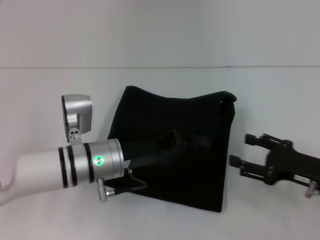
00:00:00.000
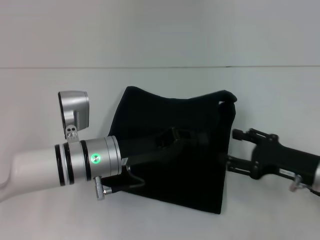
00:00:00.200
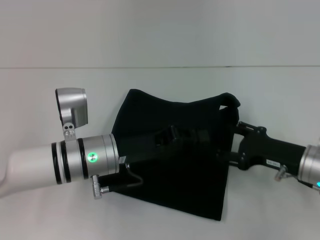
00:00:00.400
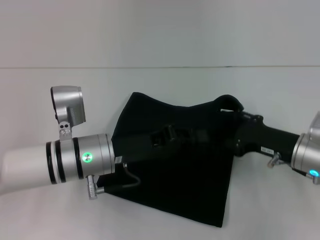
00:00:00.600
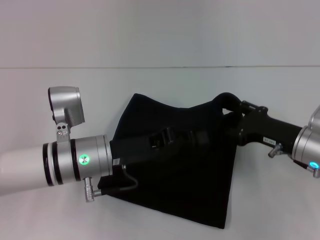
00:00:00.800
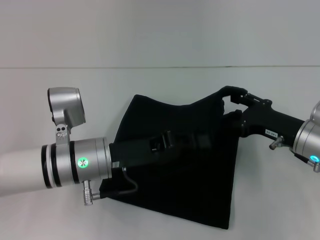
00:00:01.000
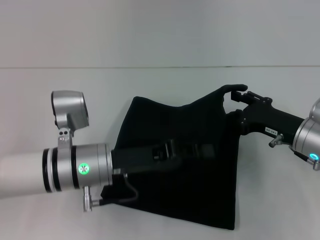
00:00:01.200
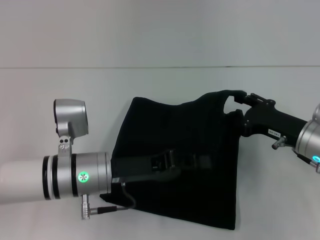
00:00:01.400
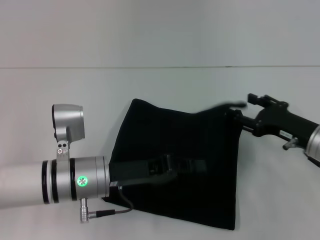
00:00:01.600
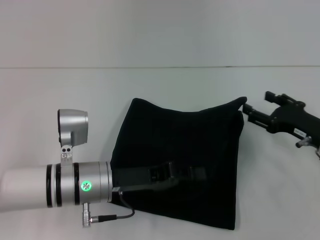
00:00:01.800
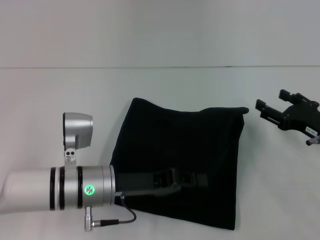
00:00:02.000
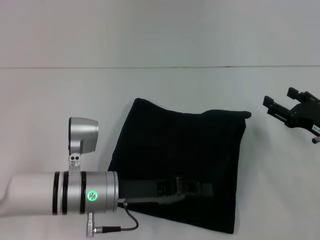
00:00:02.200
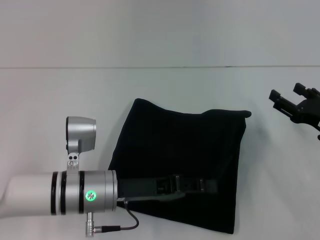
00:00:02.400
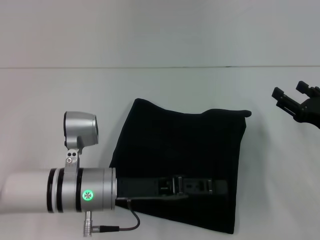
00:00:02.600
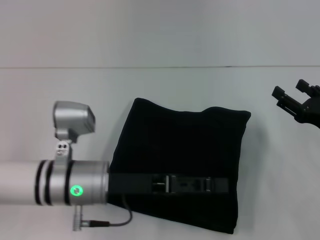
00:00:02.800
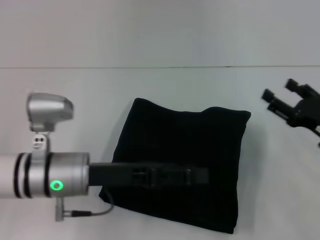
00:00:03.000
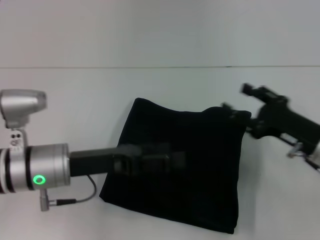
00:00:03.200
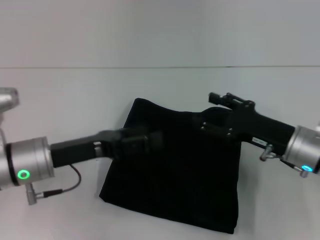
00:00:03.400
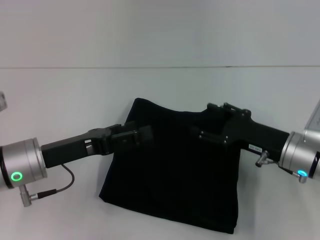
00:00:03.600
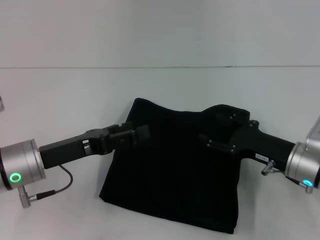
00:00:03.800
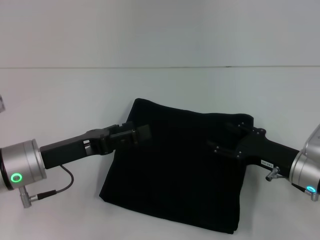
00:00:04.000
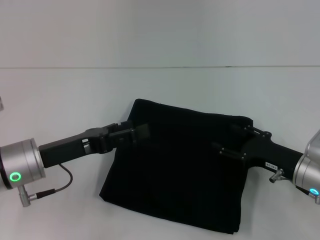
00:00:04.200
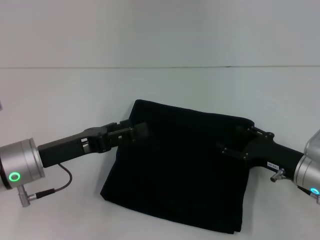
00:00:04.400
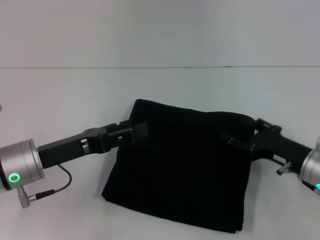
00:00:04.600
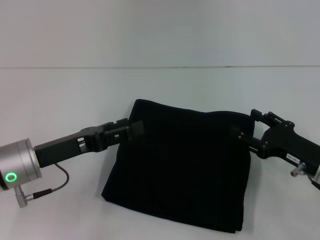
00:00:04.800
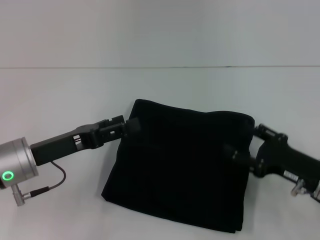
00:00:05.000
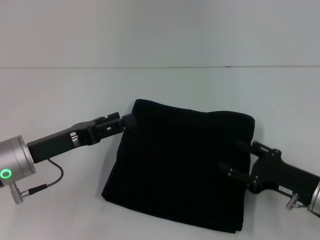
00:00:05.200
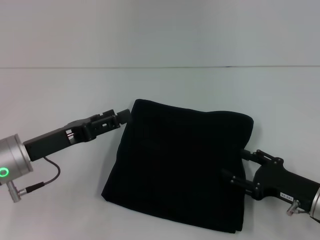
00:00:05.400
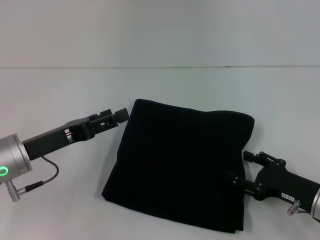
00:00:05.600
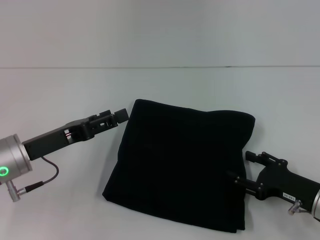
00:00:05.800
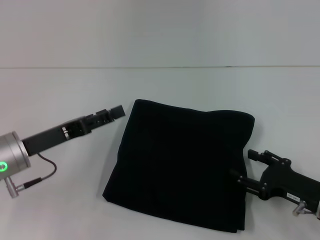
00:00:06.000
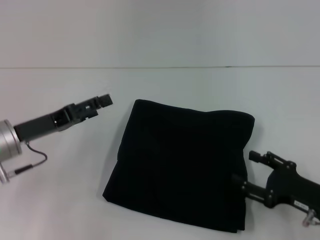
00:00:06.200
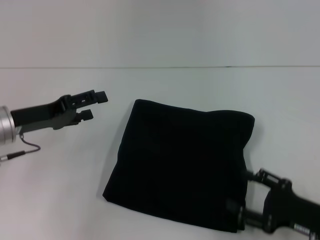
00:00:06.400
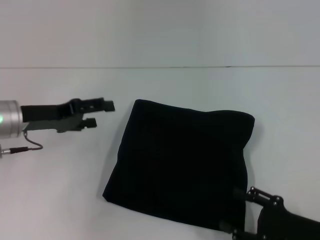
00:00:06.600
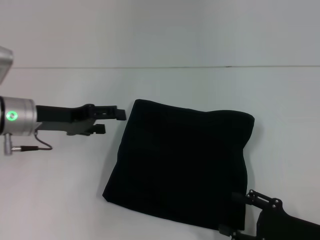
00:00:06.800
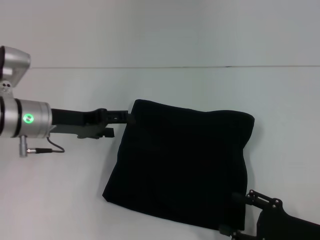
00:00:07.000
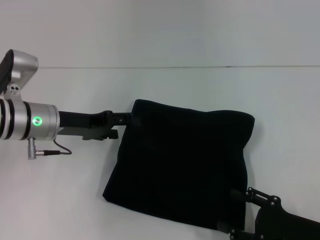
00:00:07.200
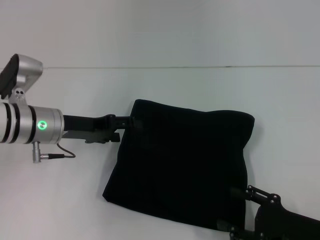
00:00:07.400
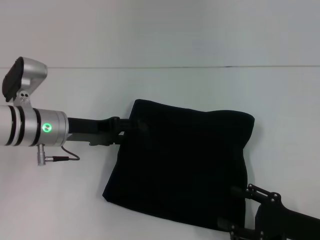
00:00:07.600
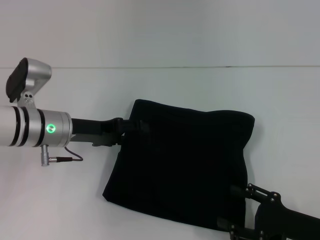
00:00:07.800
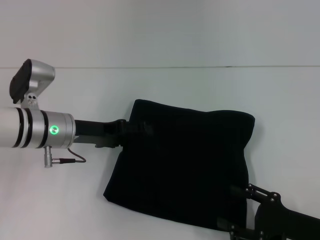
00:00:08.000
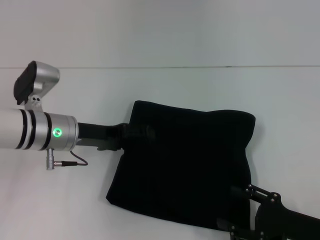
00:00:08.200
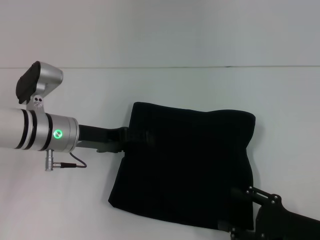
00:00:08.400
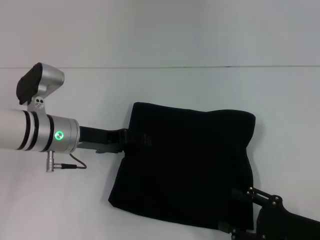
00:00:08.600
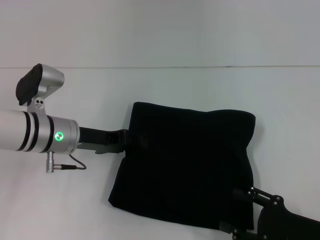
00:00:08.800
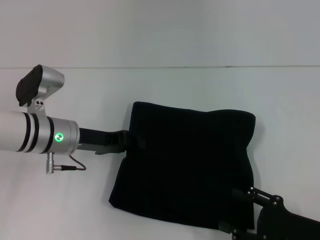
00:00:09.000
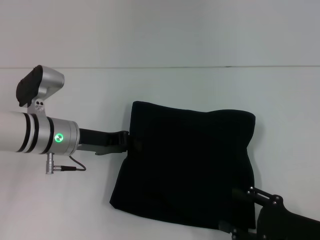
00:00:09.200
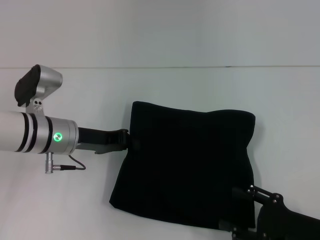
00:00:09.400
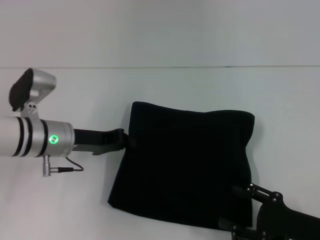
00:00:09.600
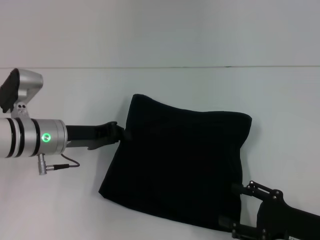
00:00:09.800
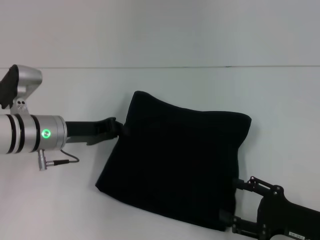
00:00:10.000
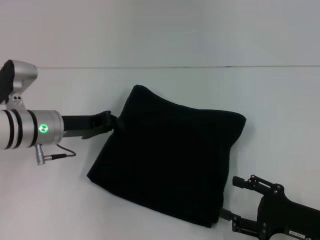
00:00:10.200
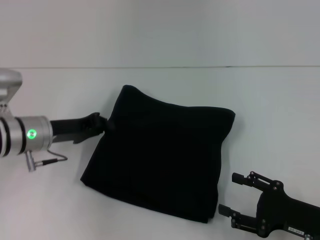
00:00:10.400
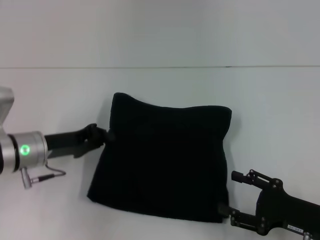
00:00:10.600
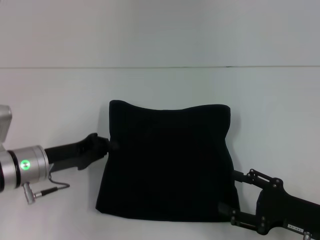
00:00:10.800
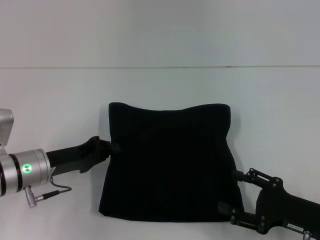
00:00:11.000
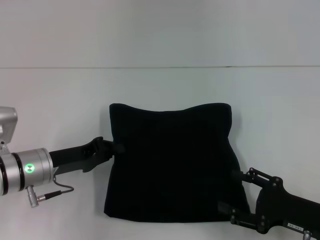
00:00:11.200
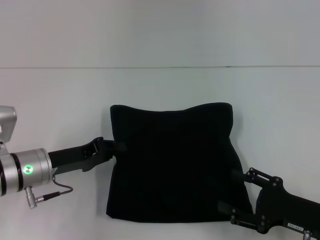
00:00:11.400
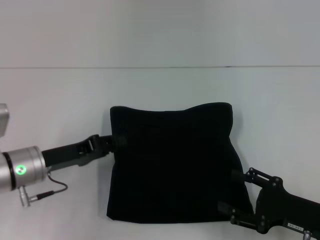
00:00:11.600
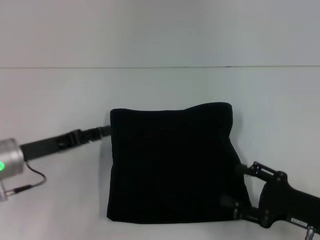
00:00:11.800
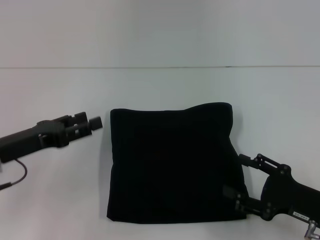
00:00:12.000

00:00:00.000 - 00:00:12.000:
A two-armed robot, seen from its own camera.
00:00:00.000 - 00:00:01.600: The right gripper shifts some 5 cm forward.
00:00:01.600 - 00:00:03.000: The left gripper opens up.
00:00:03.000 - 00:00:04.400: The left gripper goes roughly 5 cm to the left, while the right gripper moves some 5 cm.
00:00:04.400 - 00:00:06.000: The right gripper travels backward by approximately 5 cm.
00:00:06.000 - 00:00:07.600: The left gripper shifts about 5 cm forward.
00:00:07.600 - 00:00:09.000: The left gripper closes.
00:00:09.000 - 00:00:10.400: The left gripper closes its fingers.
00:00:10.400 - 00:00:12.000: The left gripper goes roughly 5 cm backward, and opens up.

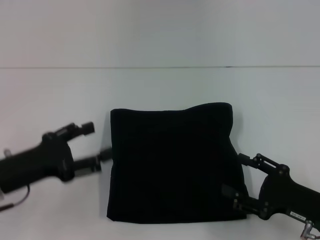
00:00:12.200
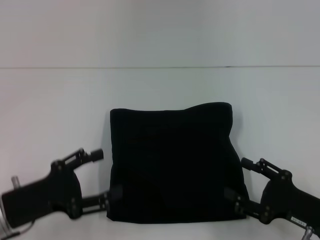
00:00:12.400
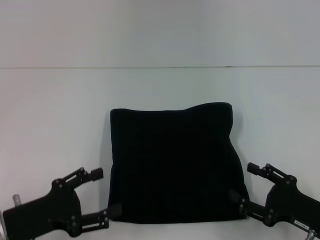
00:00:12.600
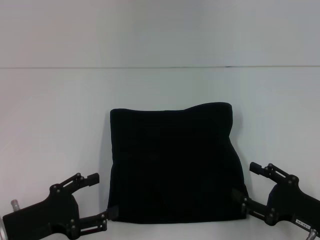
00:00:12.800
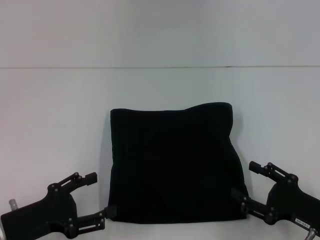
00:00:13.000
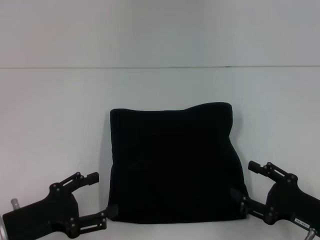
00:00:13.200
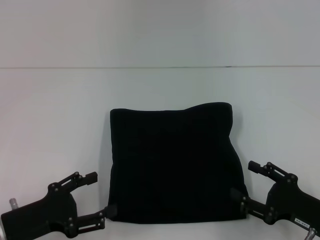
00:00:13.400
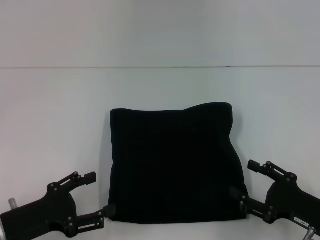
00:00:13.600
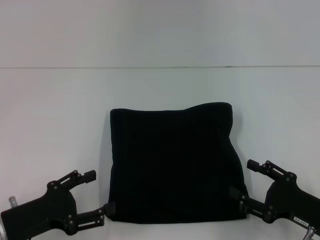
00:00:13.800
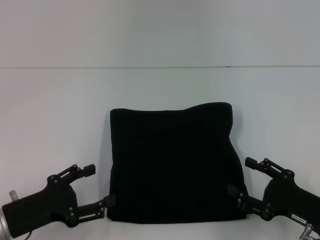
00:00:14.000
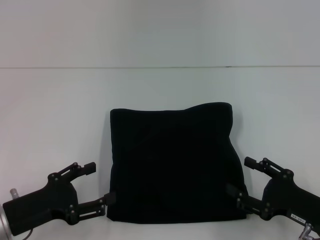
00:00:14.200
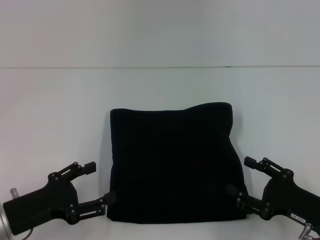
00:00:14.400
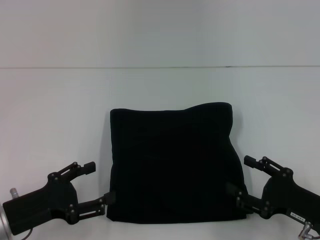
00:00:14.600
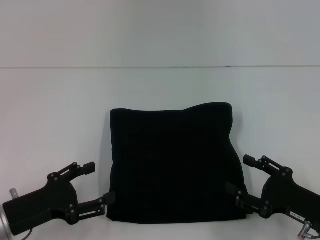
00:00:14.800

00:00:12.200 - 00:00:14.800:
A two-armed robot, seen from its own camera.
00:00:12.200 - 00:00:13.400: The left gripper changes place by about 5 cm.
00:00:13.400 - 00:00:14.800: Neither gripper changes place.

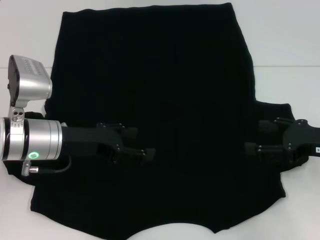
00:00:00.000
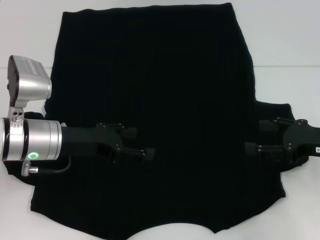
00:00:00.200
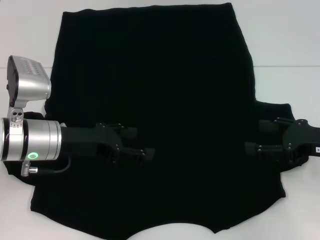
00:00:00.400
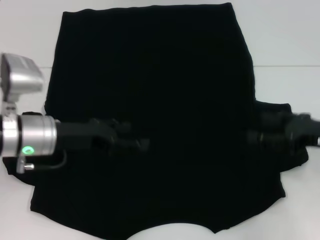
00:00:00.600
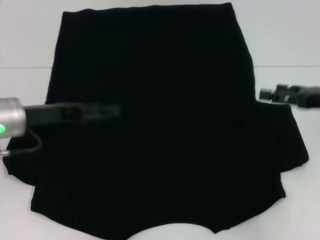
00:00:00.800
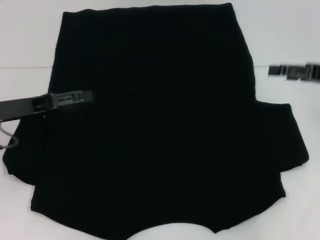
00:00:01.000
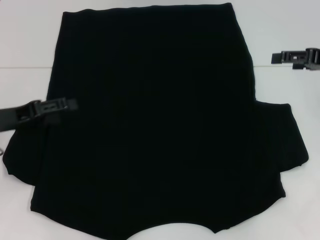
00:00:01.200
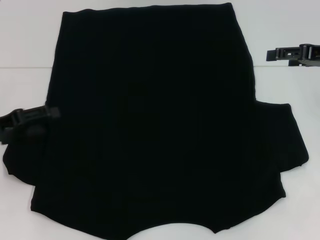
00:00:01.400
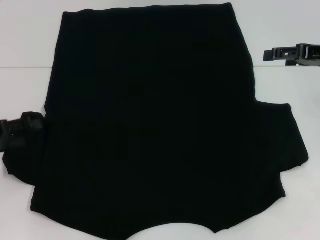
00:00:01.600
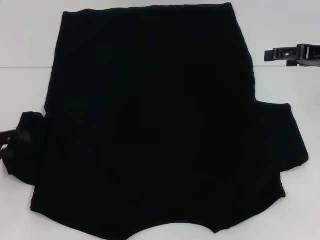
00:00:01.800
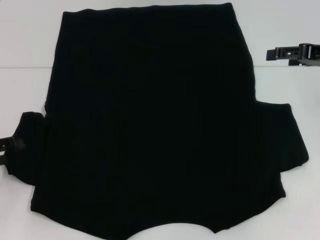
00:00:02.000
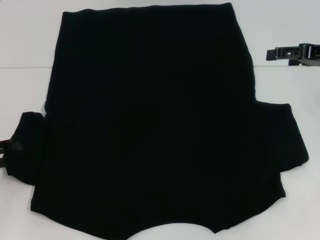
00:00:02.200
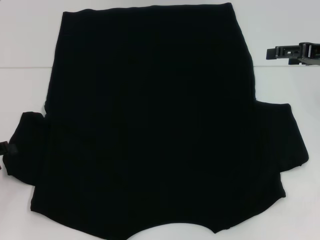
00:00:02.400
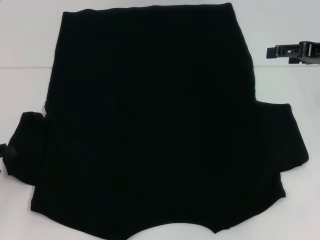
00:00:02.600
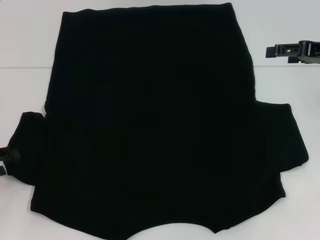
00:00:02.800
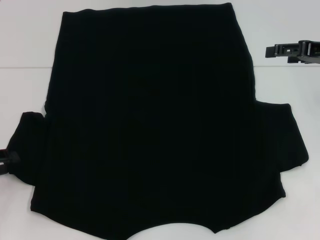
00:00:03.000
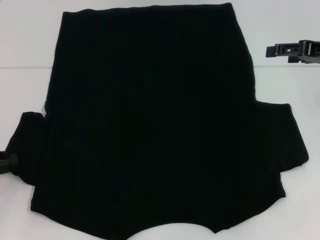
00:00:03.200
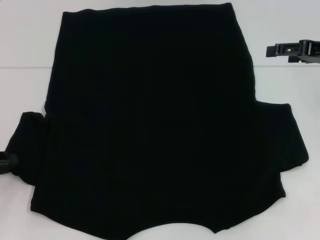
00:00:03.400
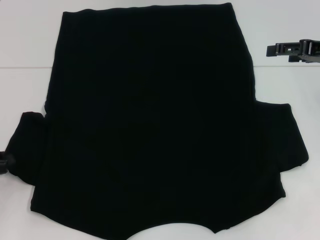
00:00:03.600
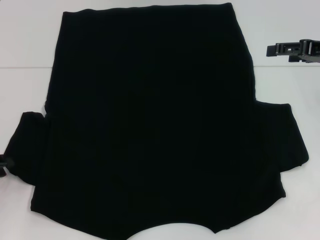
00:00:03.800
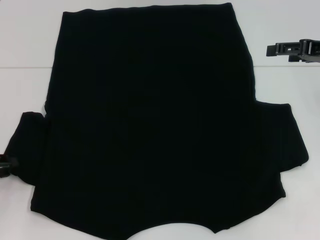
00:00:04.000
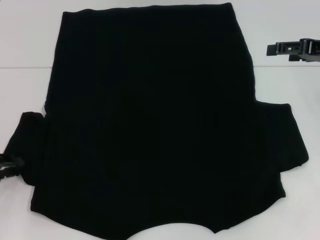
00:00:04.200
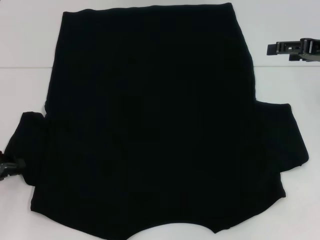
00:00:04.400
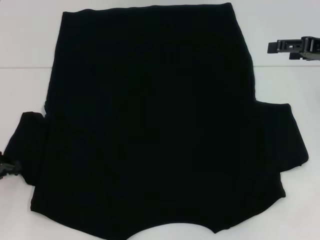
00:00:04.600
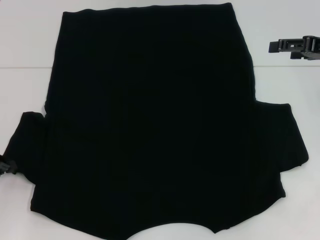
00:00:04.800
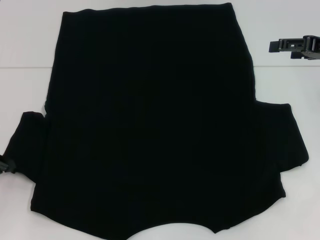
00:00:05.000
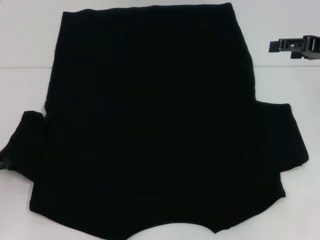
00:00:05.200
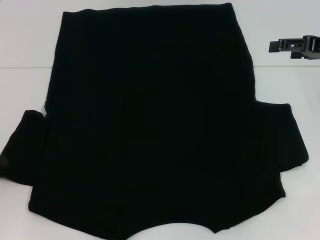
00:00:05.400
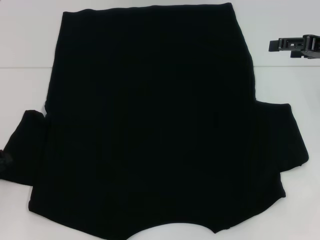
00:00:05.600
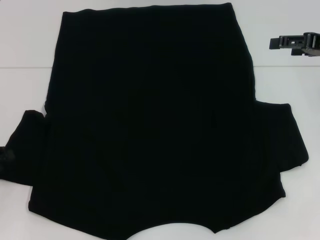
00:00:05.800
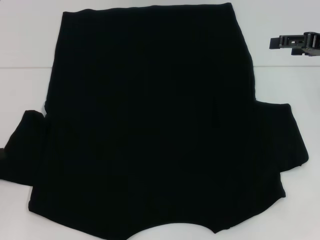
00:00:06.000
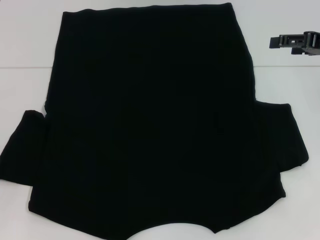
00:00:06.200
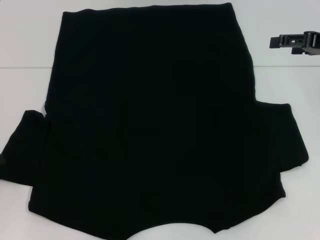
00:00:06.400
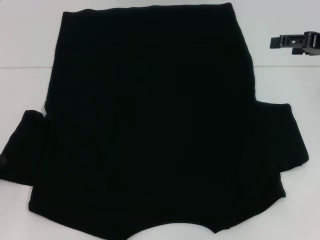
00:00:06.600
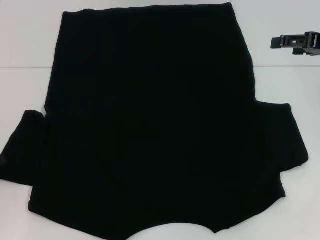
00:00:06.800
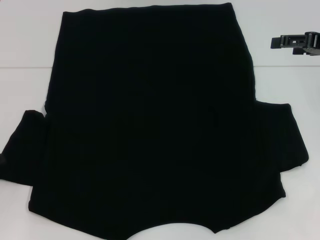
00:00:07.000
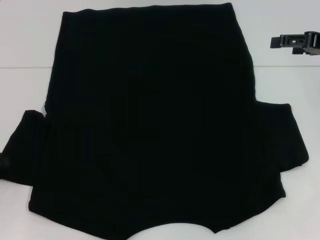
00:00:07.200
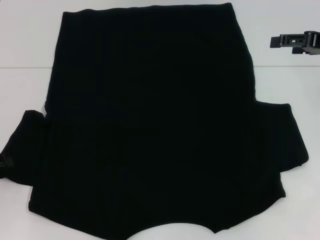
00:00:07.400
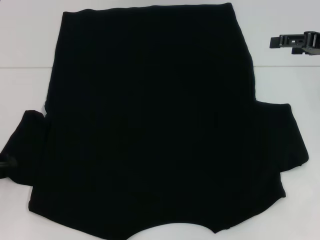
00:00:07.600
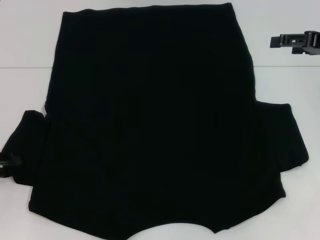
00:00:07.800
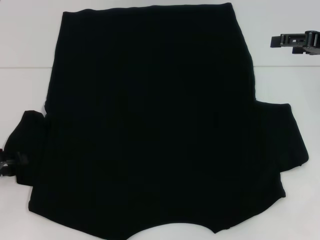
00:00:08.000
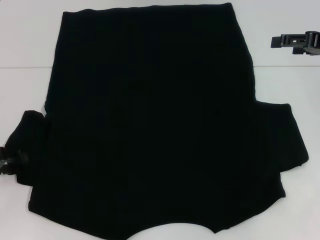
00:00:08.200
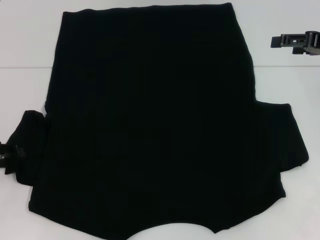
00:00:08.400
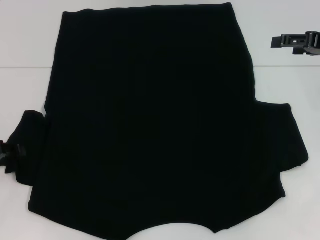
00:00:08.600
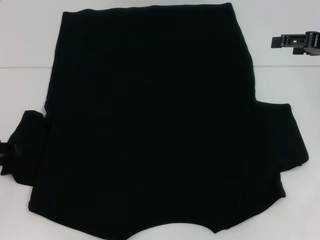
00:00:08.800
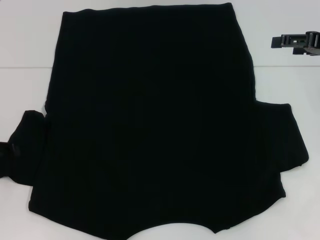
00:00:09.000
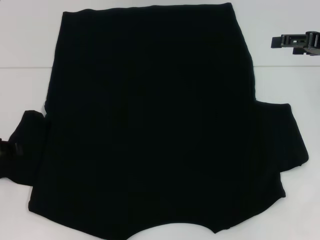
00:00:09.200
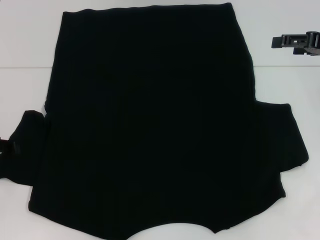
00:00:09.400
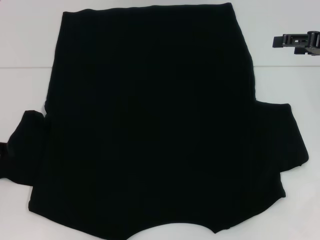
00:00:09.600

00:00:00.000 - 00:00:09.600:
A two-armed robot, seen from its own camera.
00:00:00.000 - 00:00:01.600: The right gripper heads forward and upward, covering roughly 15 cm; the left gripper is displaced to the left by about 15 cm.
00:00:01.600 - 00:00:03.200: The grippers move only a little.
00:00:04.800 - 00:00:06.400: The left gripper opens.
